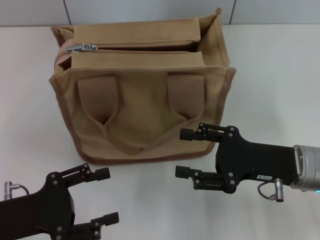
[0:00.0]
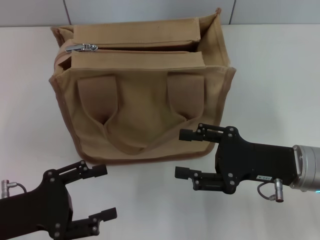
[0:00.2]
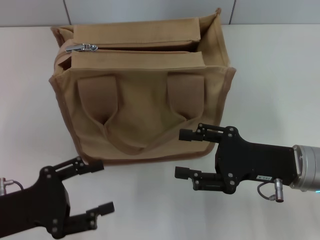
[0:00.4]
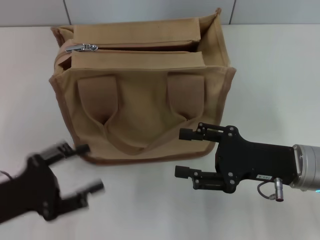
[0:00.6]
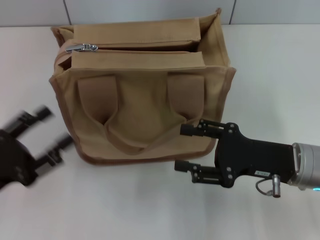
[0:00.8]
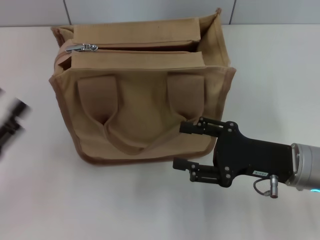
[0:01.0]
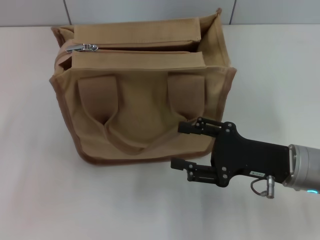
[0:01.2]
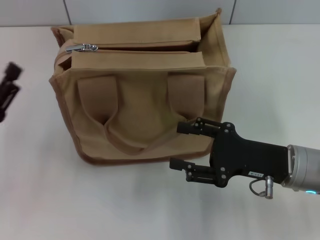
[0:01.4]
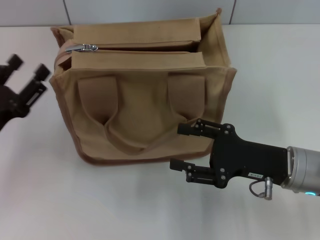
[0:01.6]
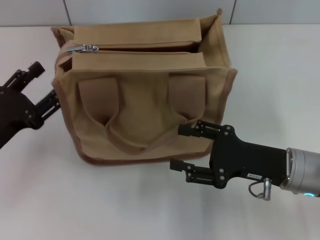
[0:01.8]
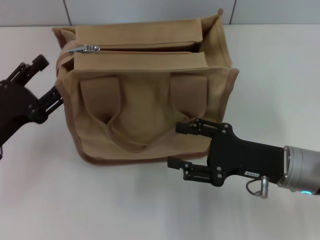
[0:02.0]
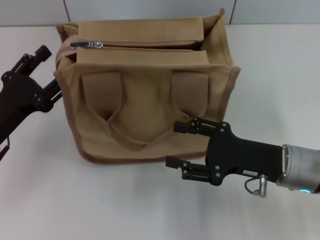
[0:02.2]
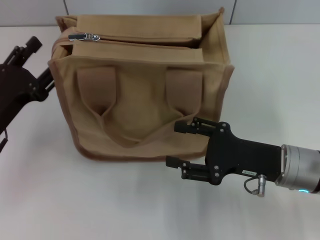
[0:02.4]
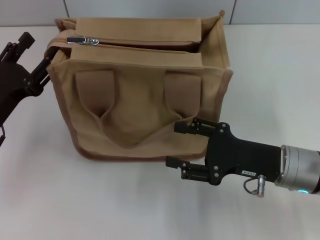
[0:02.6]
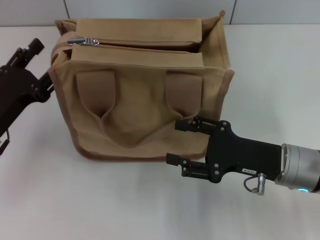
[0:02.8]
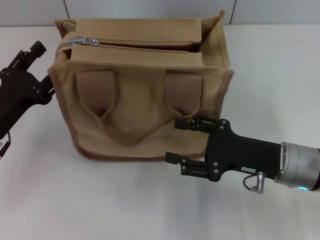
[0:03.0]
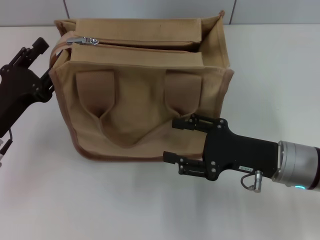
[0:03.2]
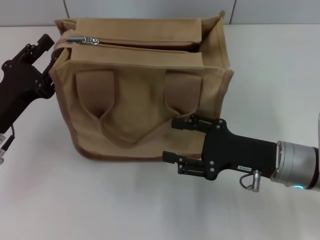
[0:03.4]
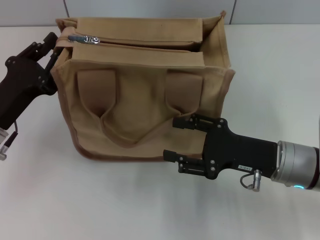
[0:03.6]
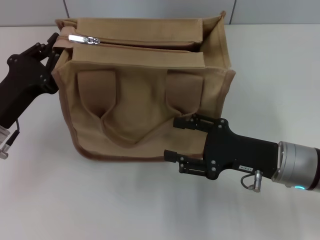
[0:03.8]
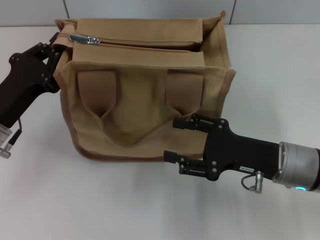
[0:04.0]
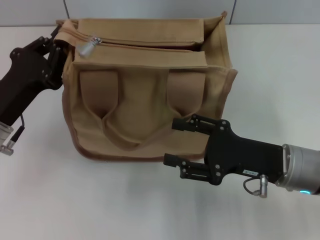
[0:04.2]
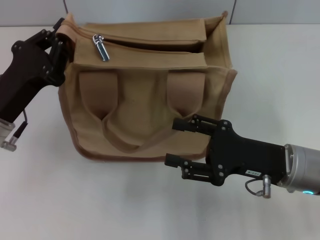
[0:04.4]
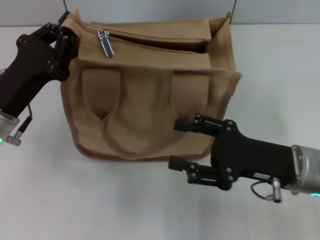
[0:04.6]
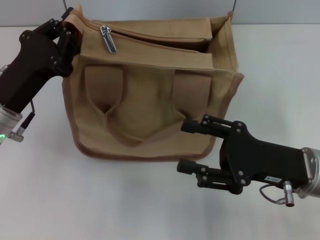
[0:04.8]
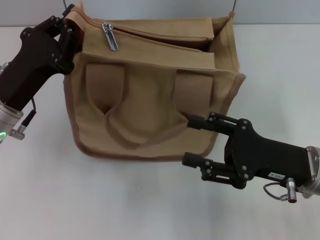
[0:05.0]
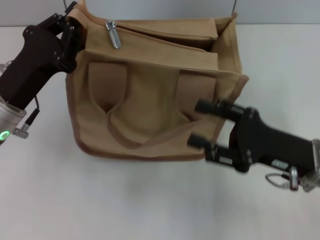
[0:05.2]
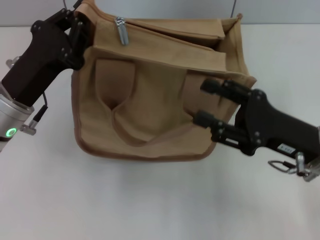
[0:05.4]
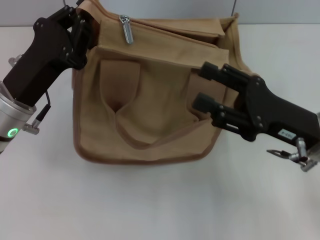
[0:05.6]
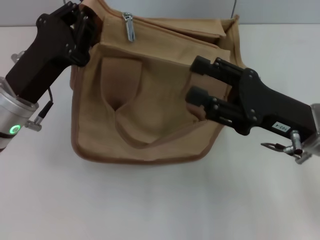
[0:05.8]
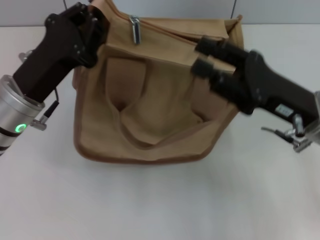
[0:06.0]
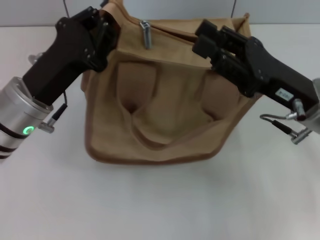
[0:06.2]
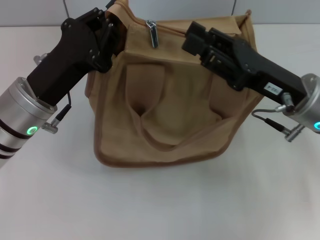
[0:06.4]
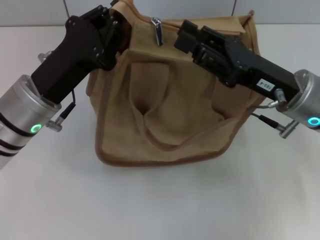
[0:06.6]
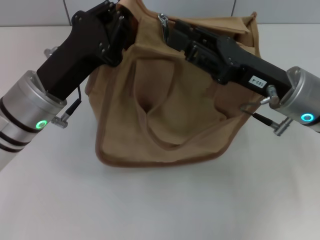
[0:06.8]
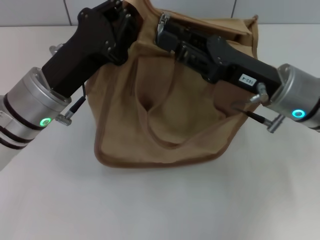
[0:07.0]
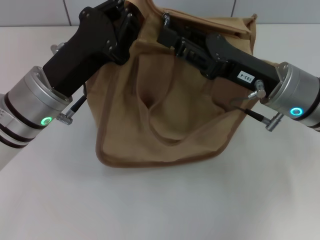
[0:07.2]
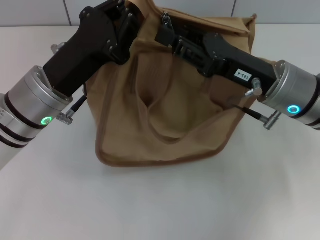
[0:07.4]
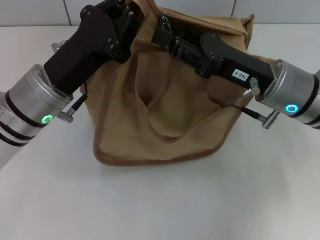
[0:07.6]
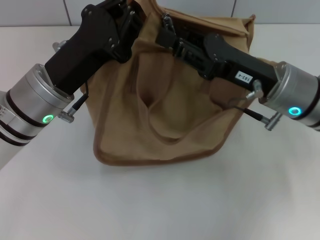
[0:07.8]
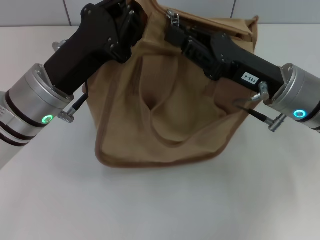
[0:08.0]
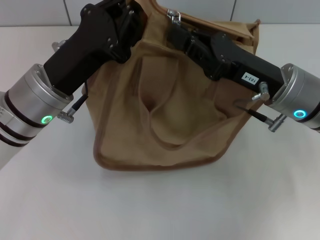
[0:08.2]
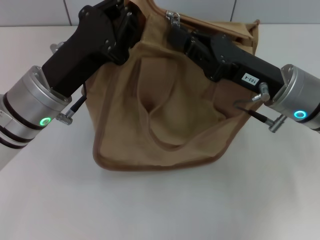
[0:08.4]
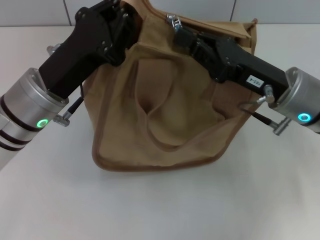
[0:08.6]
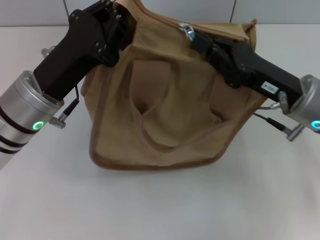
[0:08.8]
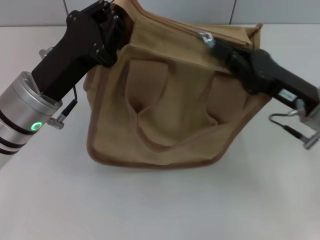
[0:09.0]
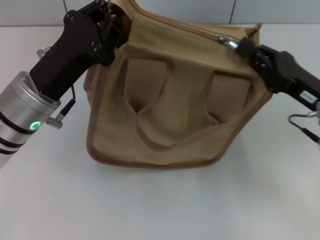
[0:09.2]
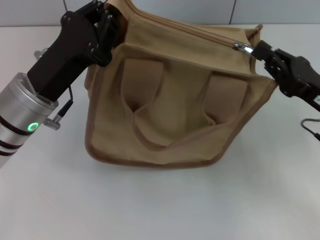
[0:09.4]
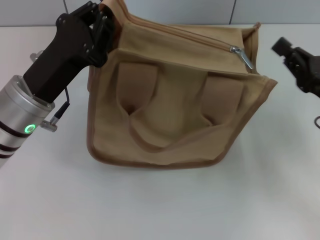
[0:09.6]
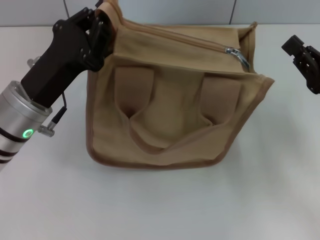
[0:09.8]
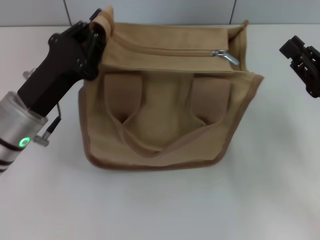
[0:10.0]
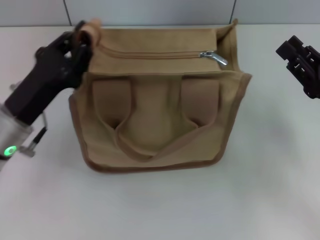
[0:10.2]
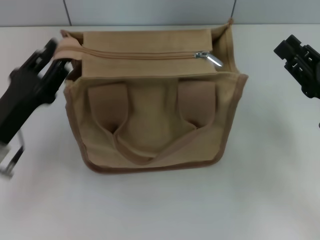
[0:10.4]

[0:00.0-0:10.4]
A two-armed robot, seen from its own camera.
Step, 0:00.0 to 0:09.4: Pull up the zipper with your right hand.
0:01.4 to 0:03.0: The left gripper goes about 5 cm forward.
0:03.0 to 0:04.4: The left gripper closes its fingers.
0:04.4 to 0:06.0: The left gripper moves about 5 cm. Meanwhile the right gripper heads upward, covering roughly 5 cm.
0:06.0 to 0:07.4: The right gripper shifts by roughly 5 cm.
0:07.4 to 0:09.0: The right gripper moves to the right, roughly 5 cm, and closes its fingers.
0:09.0 to 0:10.4: The right gripper shifts some 5 cm to the right, and opens its fingers, while the left gripper shifts some 5 cm to the left.

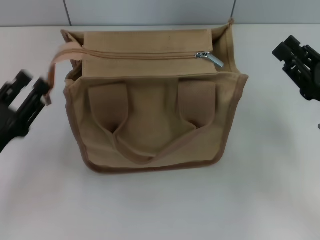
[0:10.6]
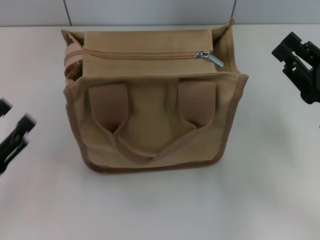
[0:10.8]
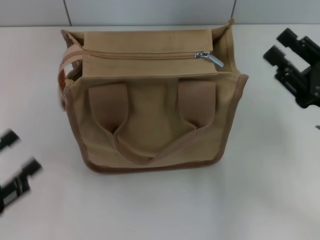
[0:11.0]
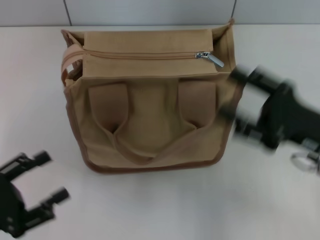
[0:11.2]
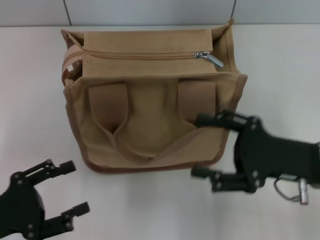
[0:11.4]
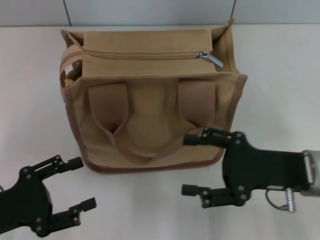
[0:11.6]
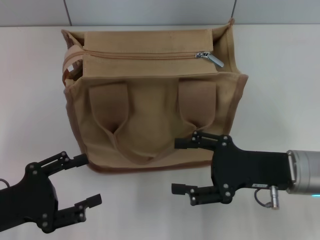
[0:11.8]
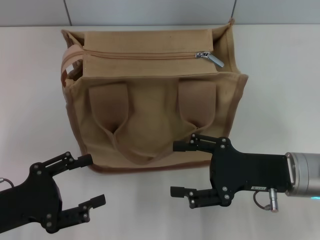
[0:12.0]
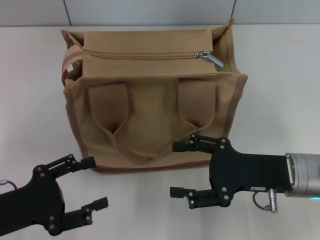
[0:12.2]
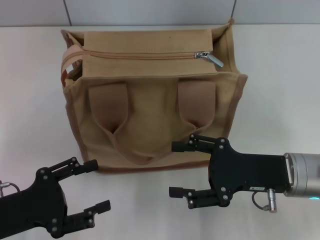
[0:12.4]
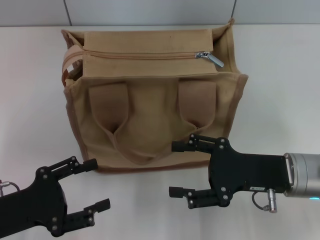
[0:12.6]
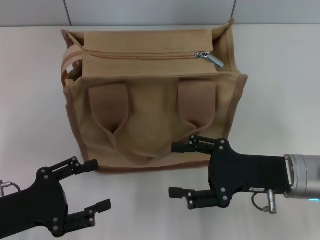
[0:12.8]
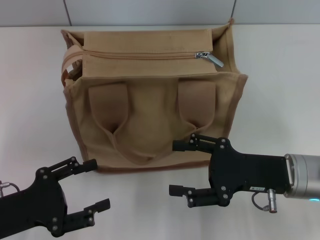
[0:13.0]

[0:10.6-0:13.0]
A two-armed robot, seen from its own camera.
0:10.6 to 0:11.8: The left gripper opens. Meanwhile the right gripper goes approximately 10 cm to the left, and opens up.
0:11.8 to 0:13.0: Neither gripper changes place.

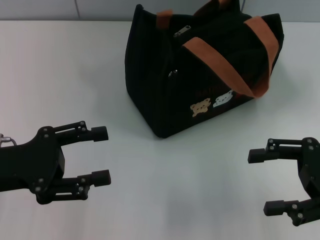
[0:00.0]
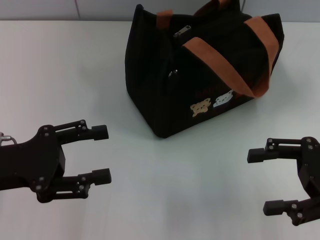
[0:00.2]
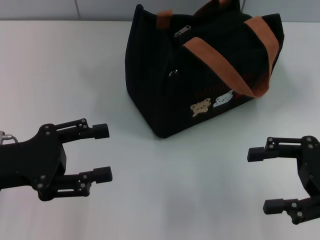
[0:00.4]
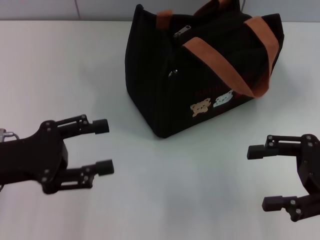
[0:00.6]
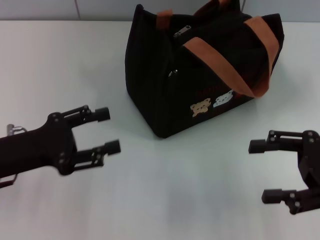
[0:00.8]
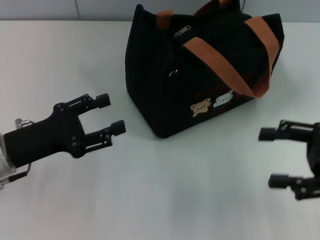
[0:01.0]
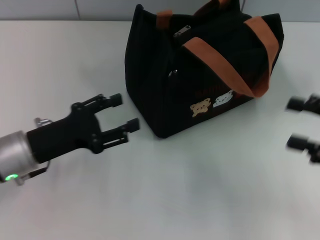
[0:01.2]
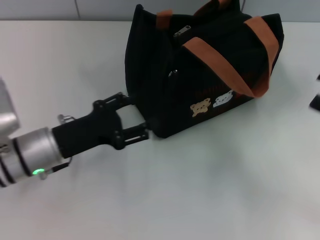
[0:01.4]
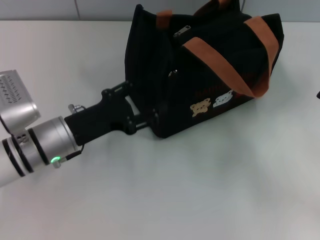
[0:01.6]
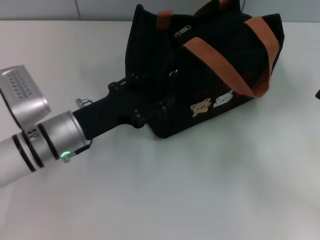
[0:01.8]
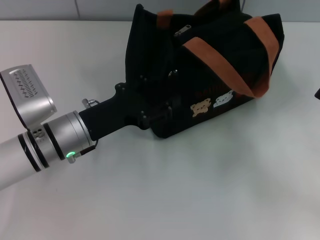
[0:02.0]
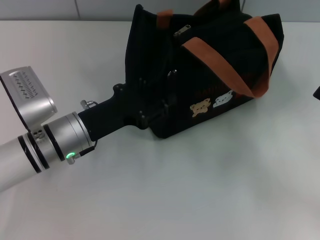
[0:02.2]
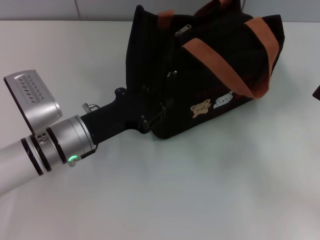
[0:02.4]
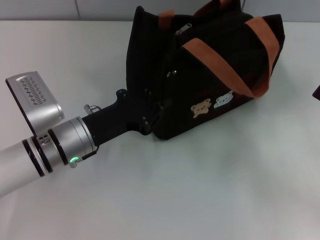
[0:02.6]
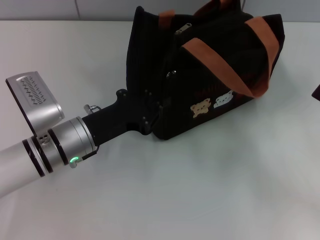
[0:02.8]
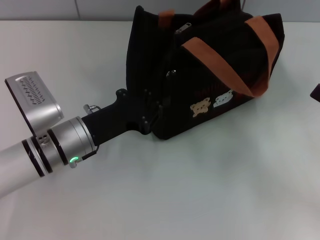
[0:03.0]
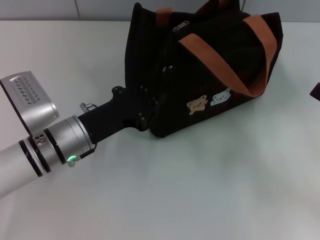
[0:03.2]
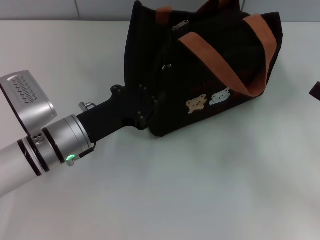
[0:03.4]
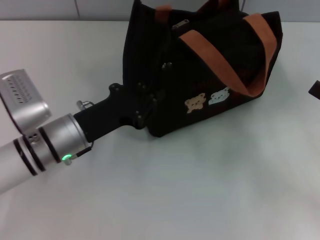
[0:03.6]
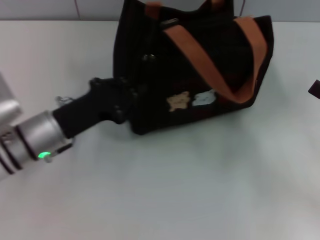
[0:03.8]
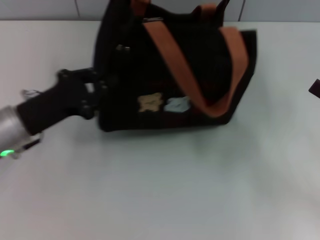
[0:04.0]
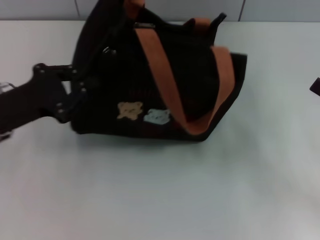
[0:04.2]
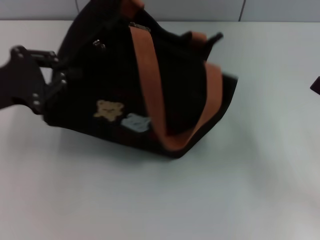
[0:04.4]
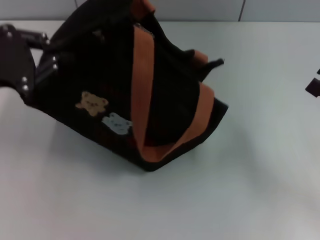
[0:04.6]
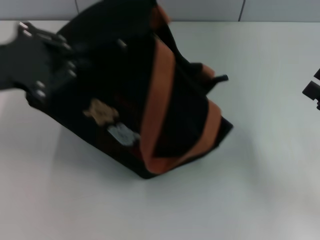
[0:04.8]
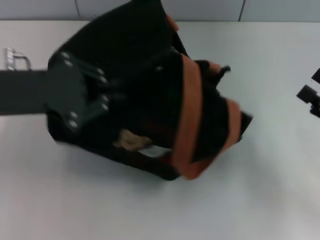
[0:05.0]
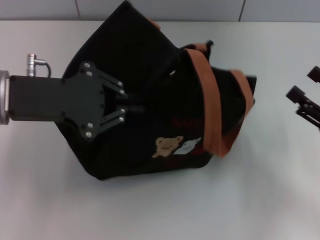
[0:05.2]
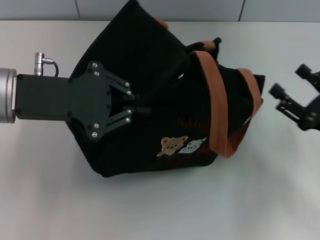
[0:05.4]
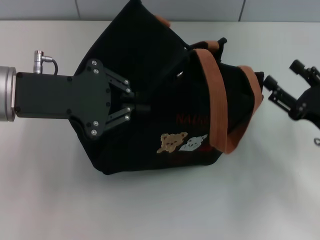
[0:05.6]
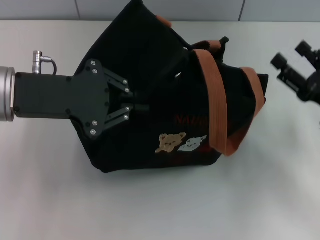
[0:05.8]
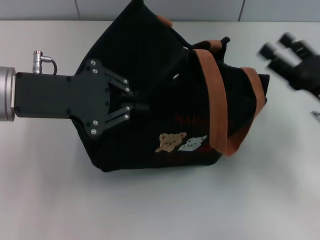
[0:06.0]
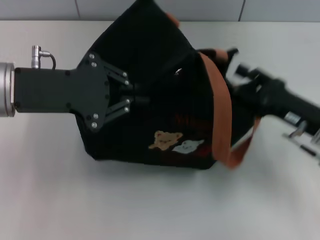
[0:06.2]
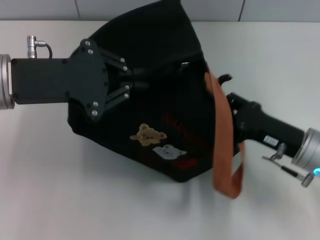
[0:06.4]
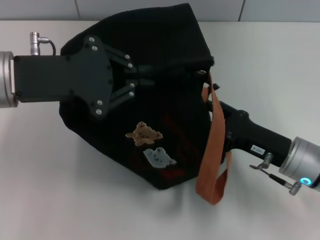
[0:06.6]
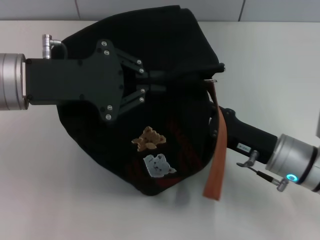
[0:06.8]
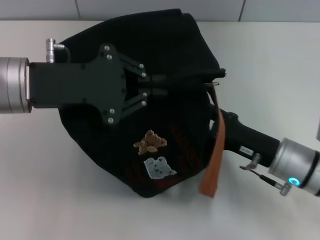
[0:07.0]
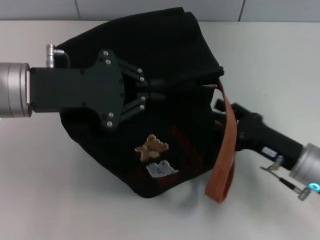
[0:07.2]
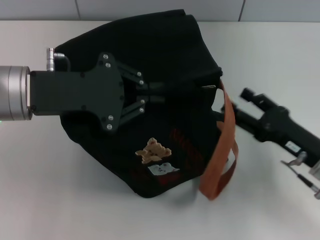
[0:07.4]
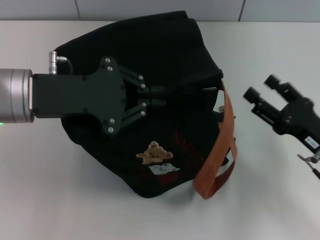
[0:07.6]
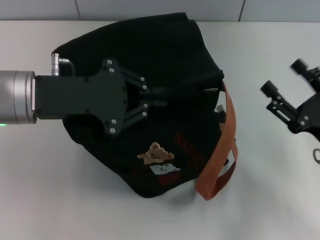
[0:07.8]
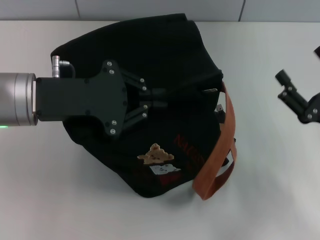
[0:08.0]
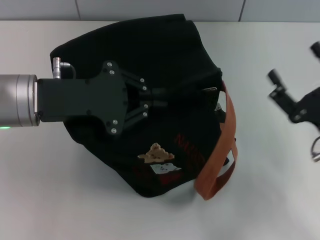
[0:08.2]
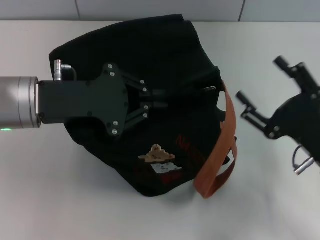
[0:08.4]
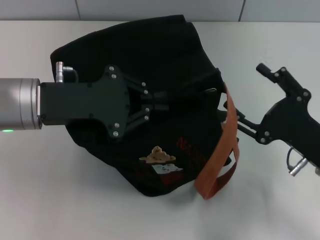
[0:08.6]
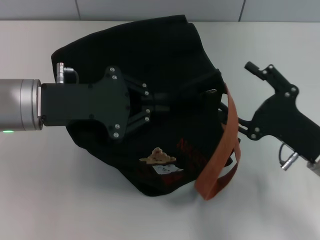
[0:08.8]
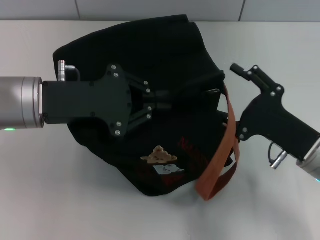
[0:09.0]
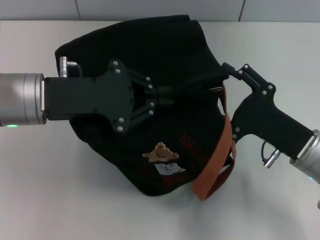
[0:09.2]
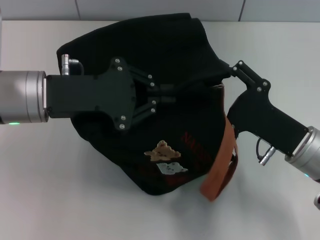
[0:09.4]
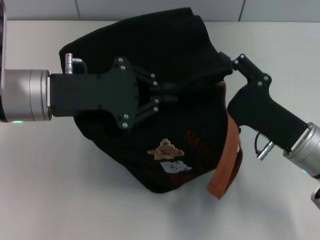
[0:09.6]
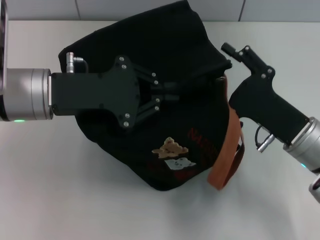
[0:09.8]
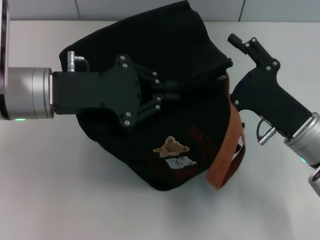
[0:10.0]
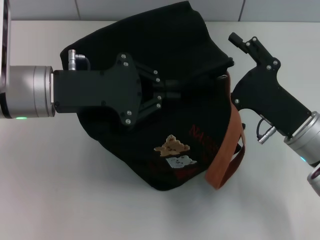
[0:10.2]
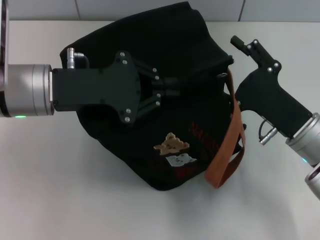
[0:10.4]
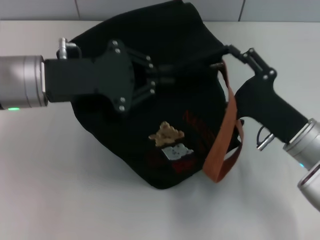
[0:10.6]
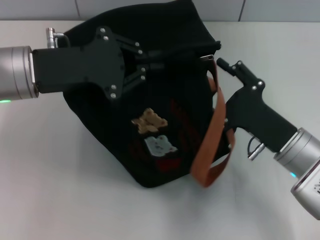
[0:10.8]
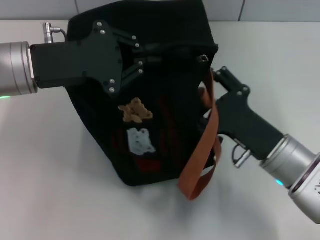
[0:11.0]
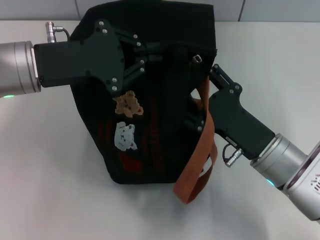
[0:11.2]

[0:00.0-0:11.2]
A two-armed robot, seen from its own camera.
0:00.0 to 0:01.6: The left gripper shifts about 15 cm to the right, downward and forward; the right gripper goes roughly 5 cm to the right.
0:01.6 to 0:03.2: The left gripper closes up.
0:03.2 to 0:04.8: The left gripper shifts approximately 20 cm upward and to the left.
0:04.8 to 0:06.4: The left gripper goes about 5 cm to the right. Meanwhile the right gripper travels to the left by approximately 10 cm.
0:06.4 to 0:08.0: The right gripper moves approximately 5 cm.
0:08.0 to 0:09.6: The right gripper travels to the left by roughly 5 cm.
